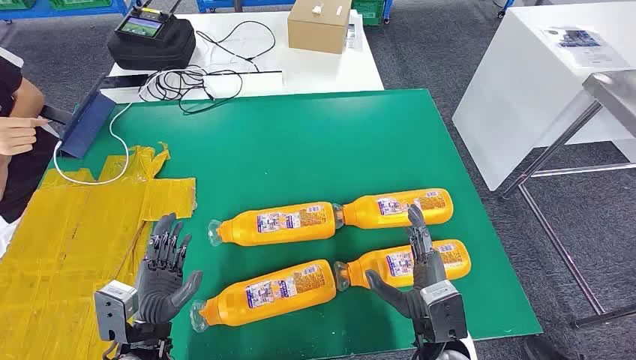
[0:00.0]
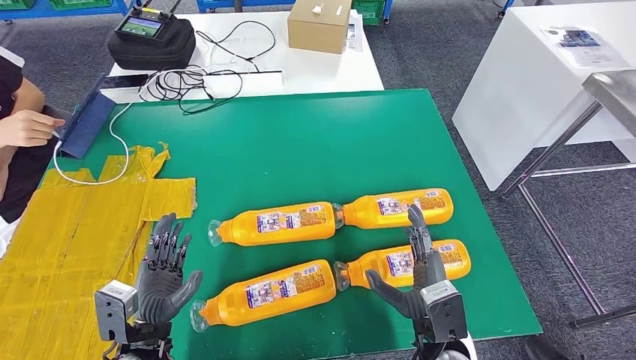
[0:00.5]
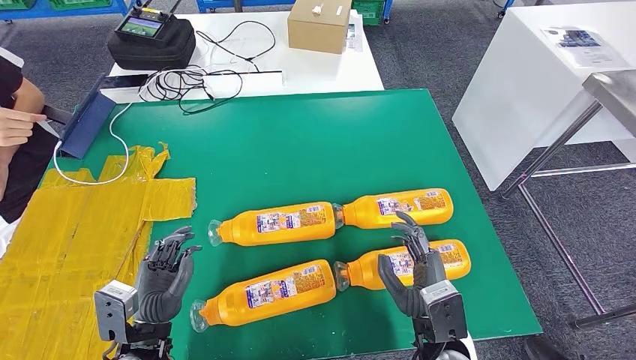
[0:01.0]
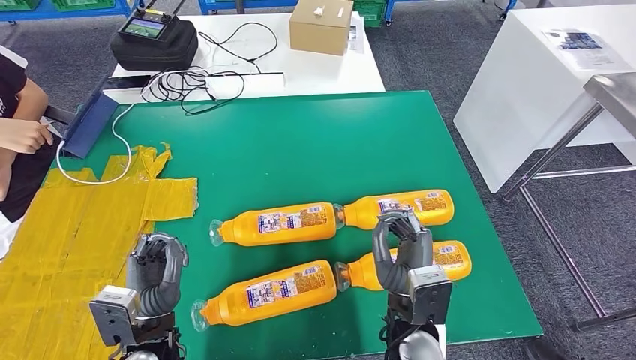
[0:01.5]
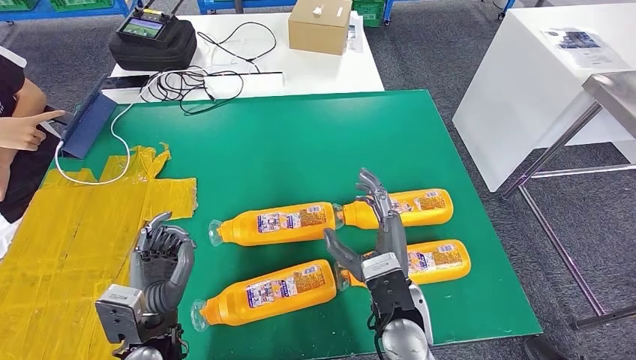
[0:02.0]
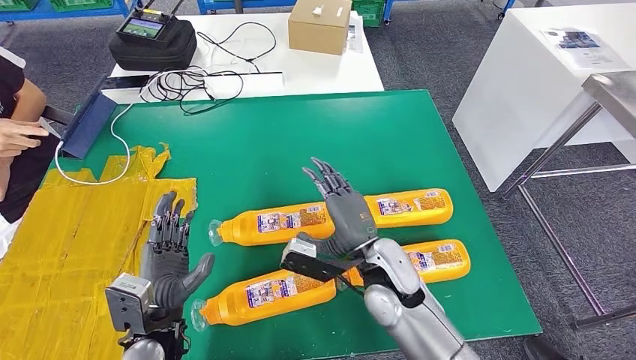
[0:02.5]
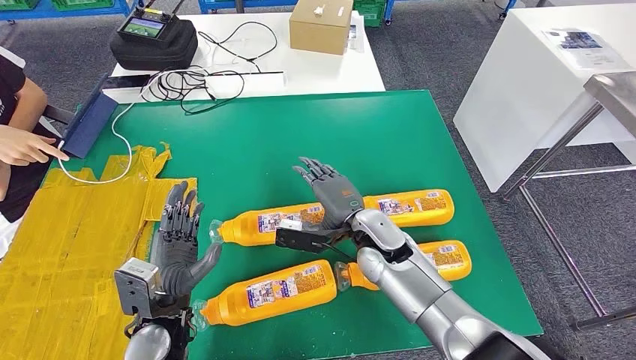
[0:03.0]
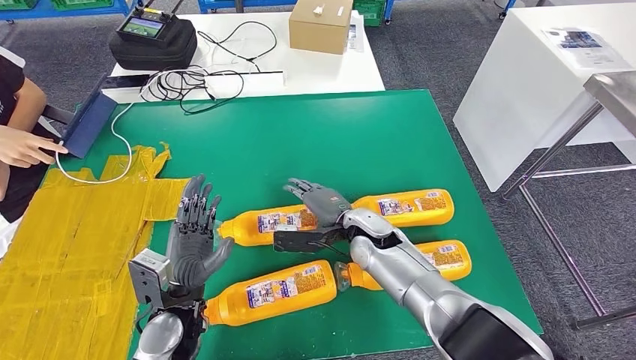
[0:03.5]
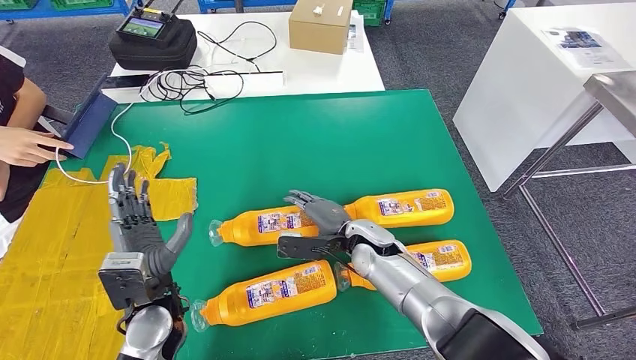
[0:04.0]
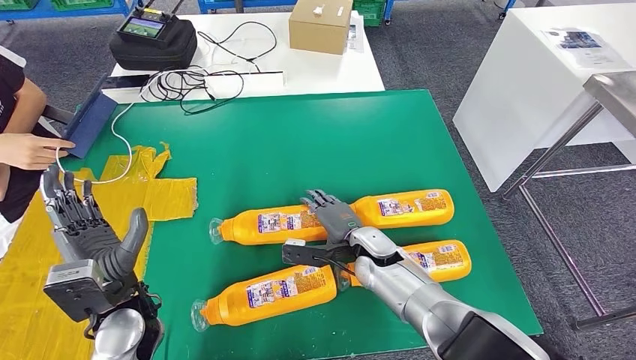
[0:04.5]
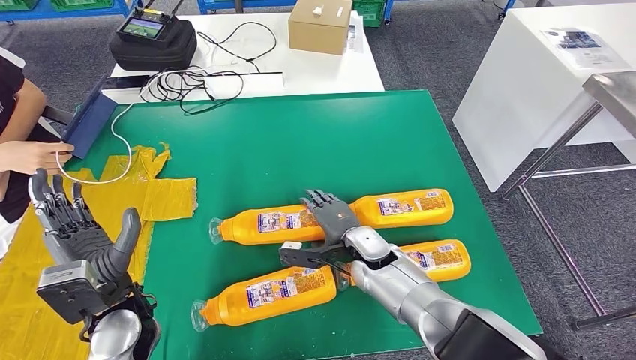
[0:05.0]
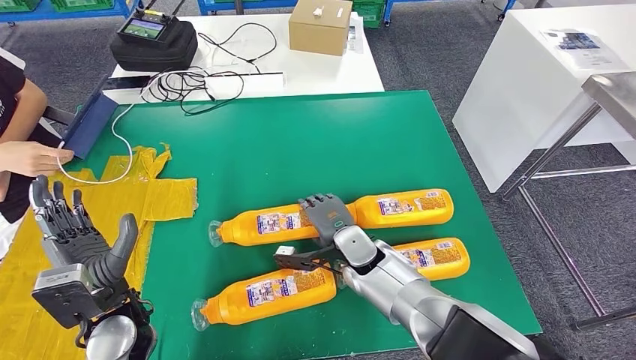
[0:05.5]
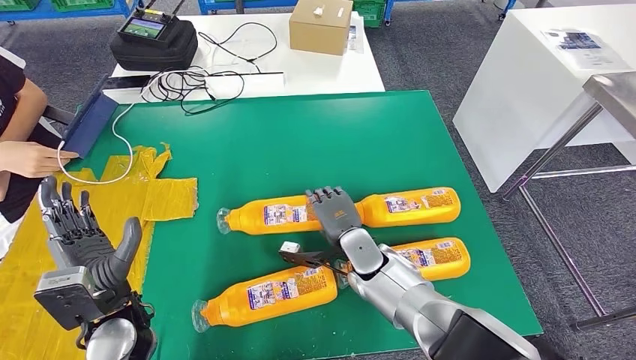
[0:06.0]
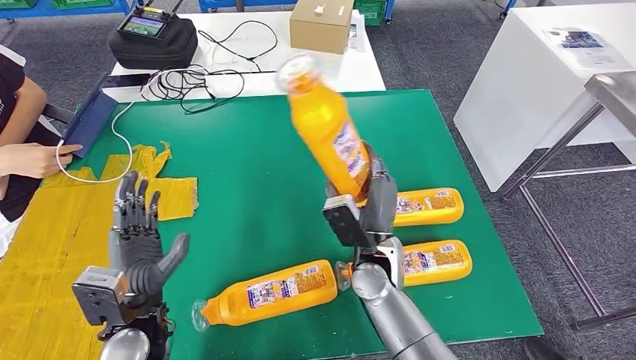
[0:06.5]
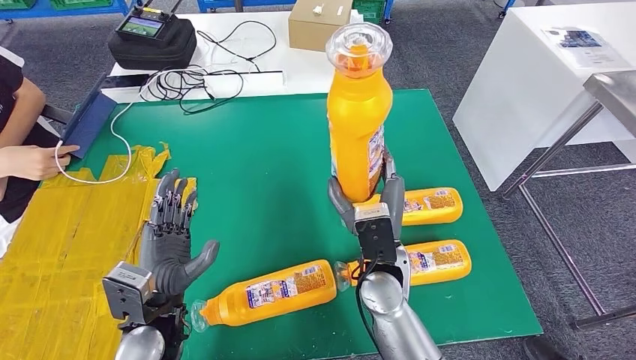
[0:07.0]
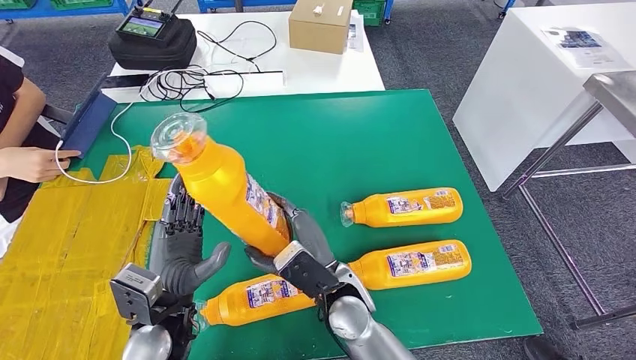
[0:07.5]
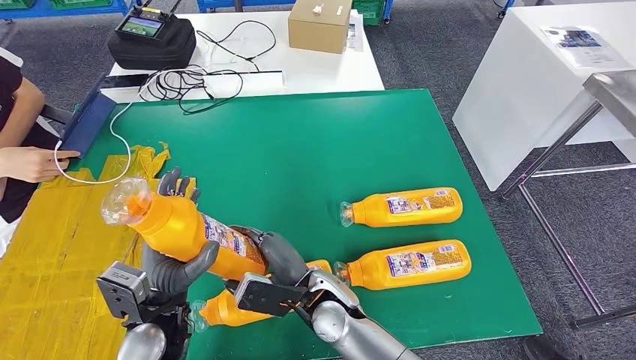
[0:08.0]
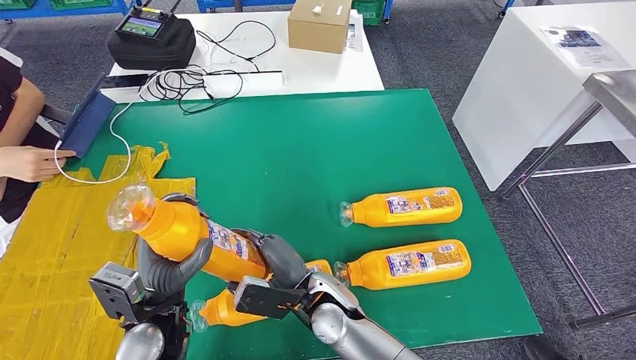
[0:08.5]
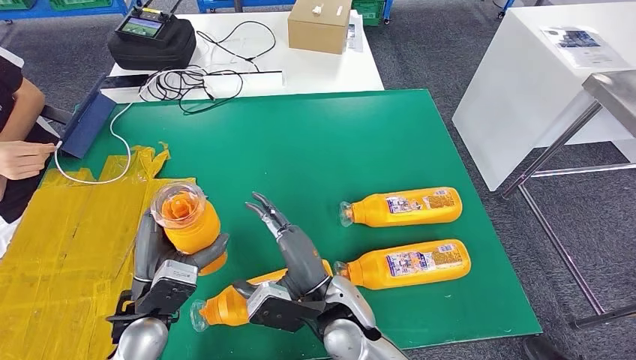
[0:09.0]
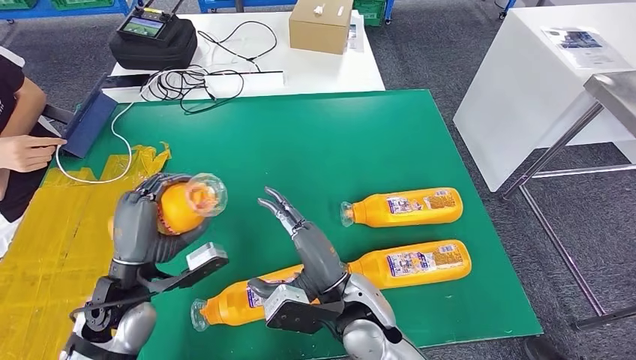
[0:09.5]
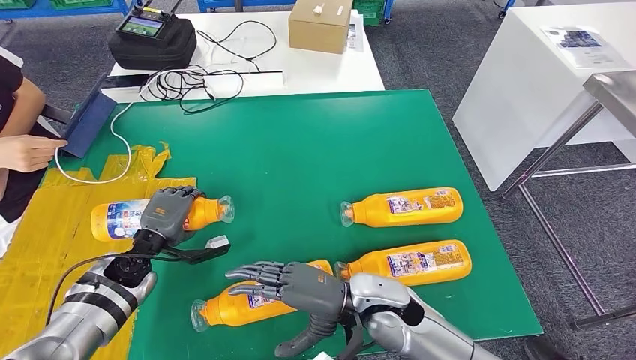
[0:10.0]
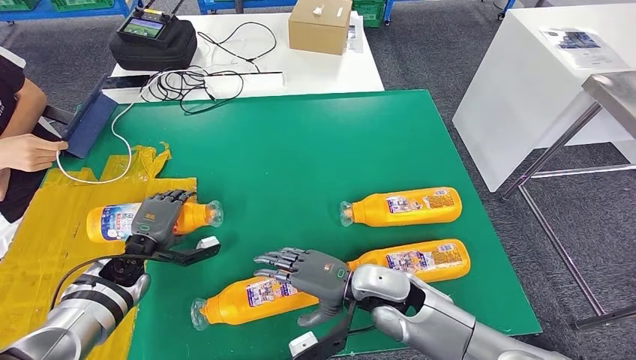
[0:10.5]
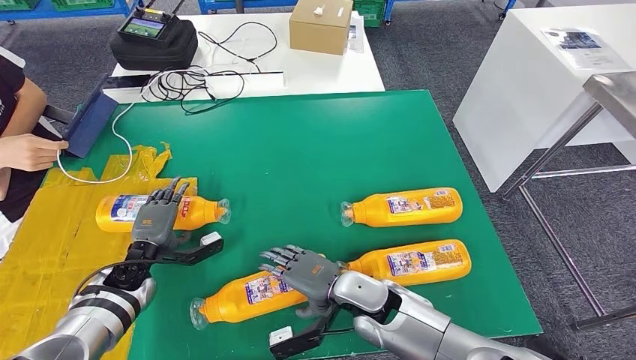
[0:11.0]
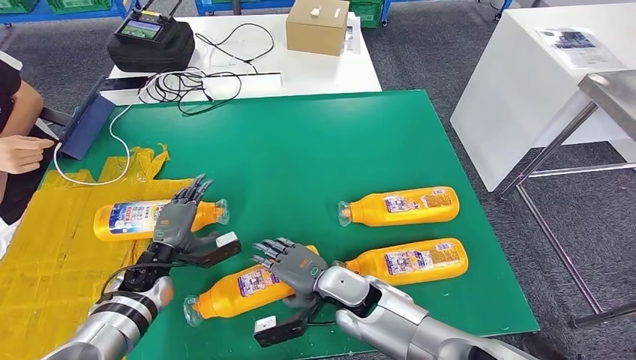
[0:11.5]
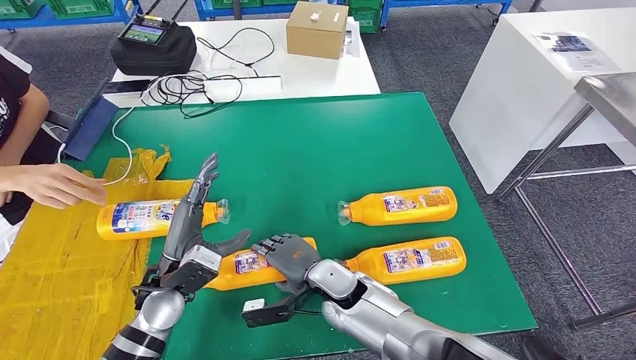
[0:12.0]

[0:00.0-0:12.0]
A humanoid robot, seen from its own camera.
Step, 0:00.0 to 0:07.5: Take the fast-moving consumer goods bottle from the table.
Step, 0:08.0 to 0:11.0: Flip the fast-moving consumer goods bottle to the front side.
0:02.0 to 0:04.0: The right hand travels forward by approximately 15 cm. The left hand moves forward, roughly 5 cm.
0:04.0 to 0:06.0: The left hand moves roughly 5 cm.
0:08.0 to 0:10.0: The right hand travels to the right by about 10 cm, while the left hand is displaced forward and to the left by roughly 15 cm.

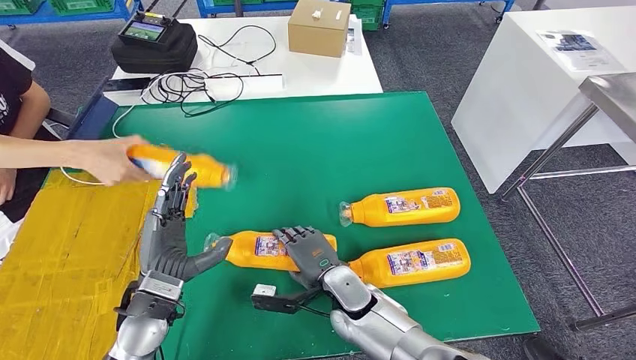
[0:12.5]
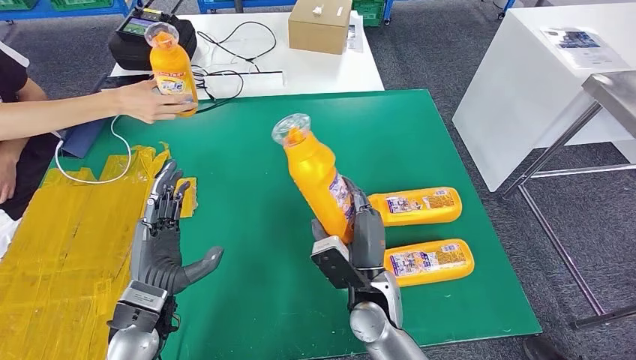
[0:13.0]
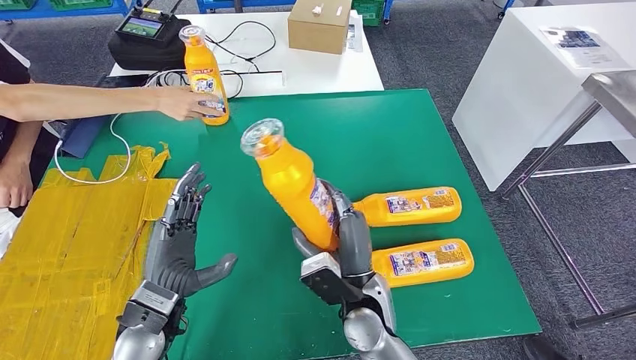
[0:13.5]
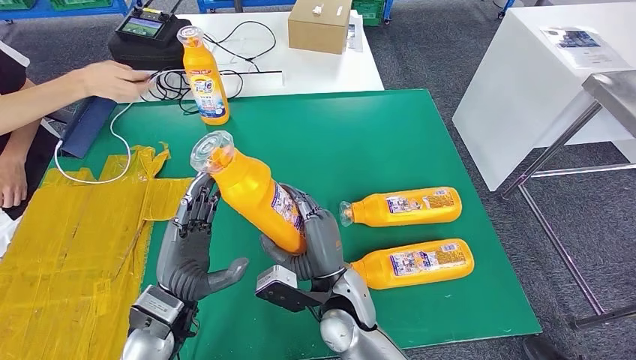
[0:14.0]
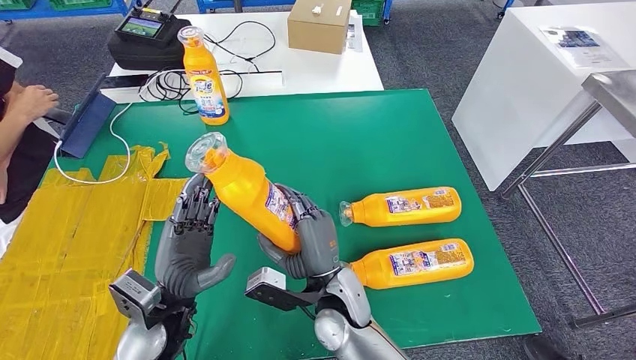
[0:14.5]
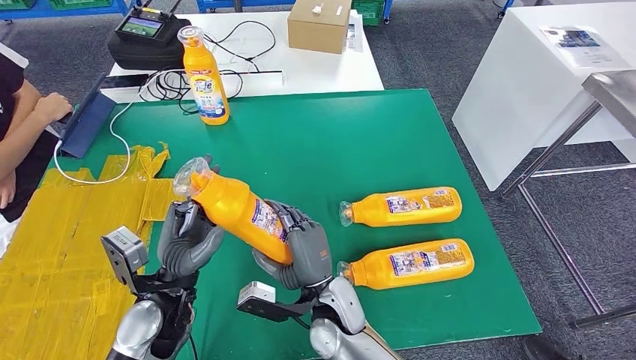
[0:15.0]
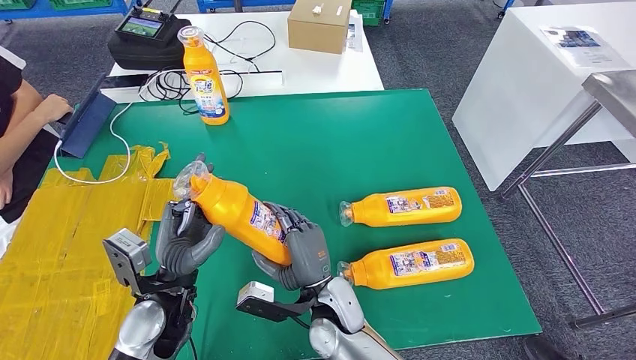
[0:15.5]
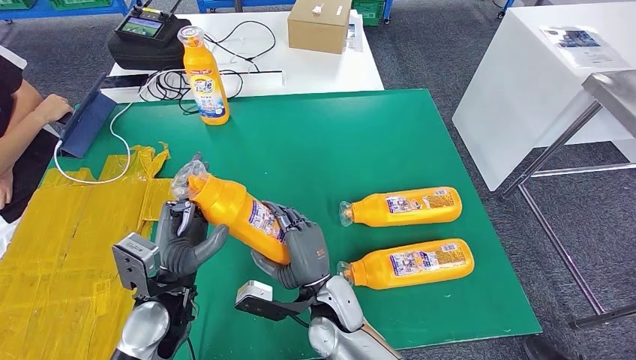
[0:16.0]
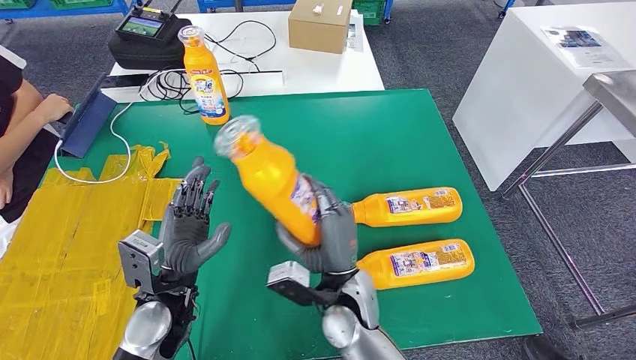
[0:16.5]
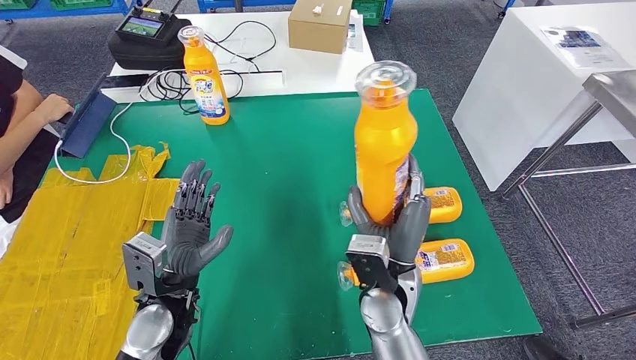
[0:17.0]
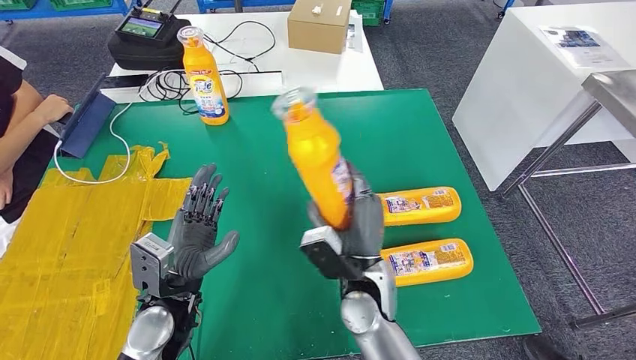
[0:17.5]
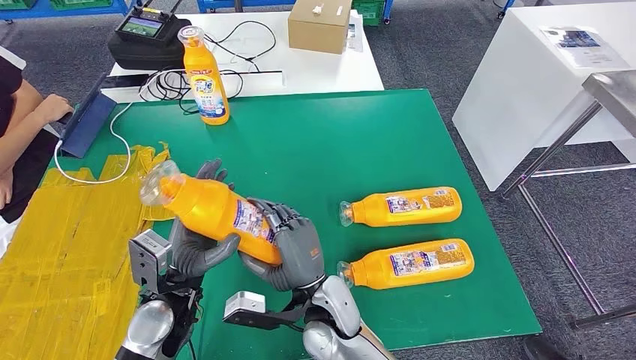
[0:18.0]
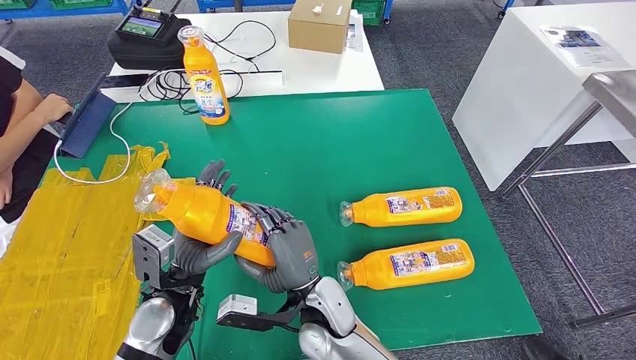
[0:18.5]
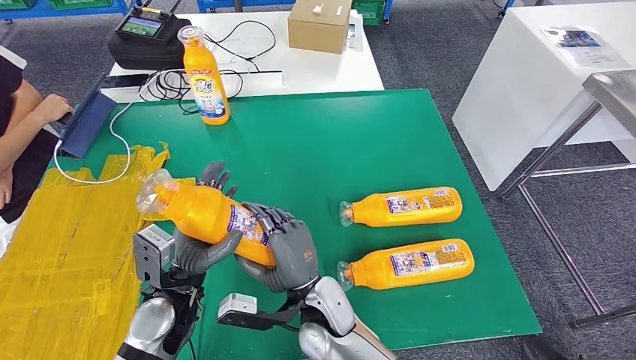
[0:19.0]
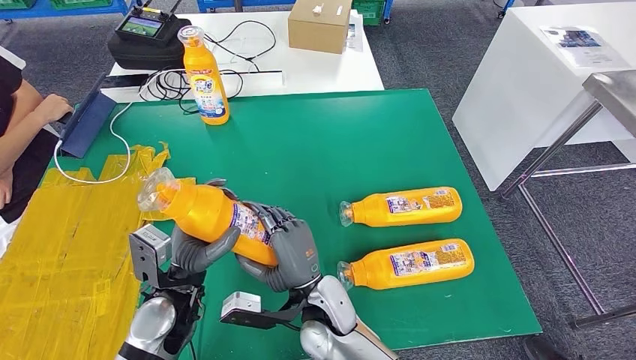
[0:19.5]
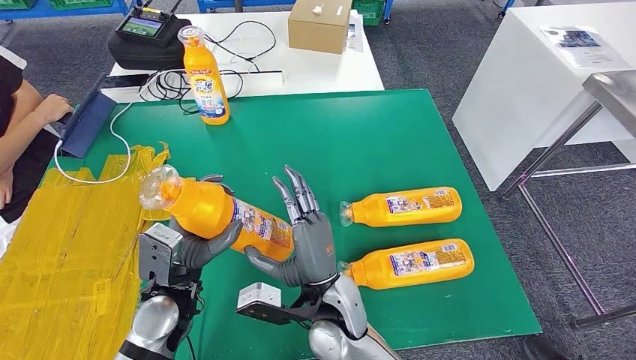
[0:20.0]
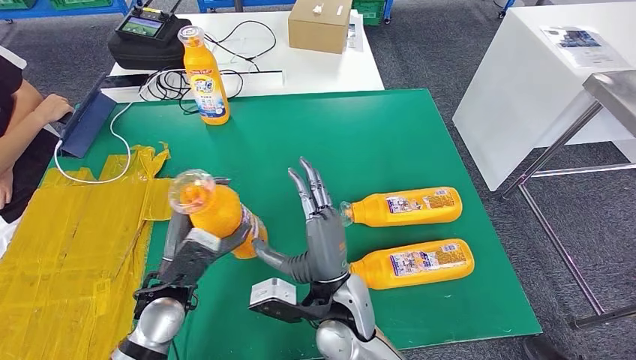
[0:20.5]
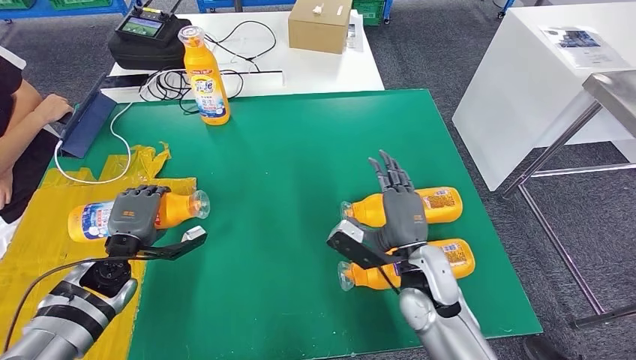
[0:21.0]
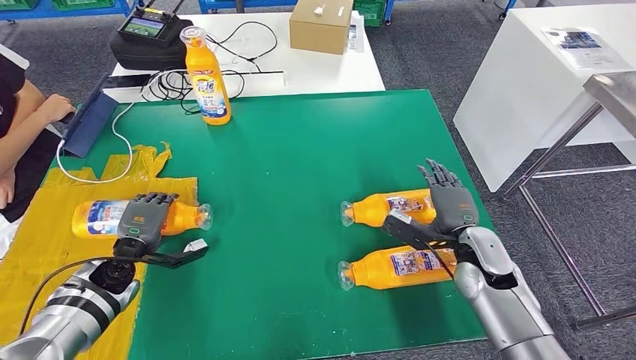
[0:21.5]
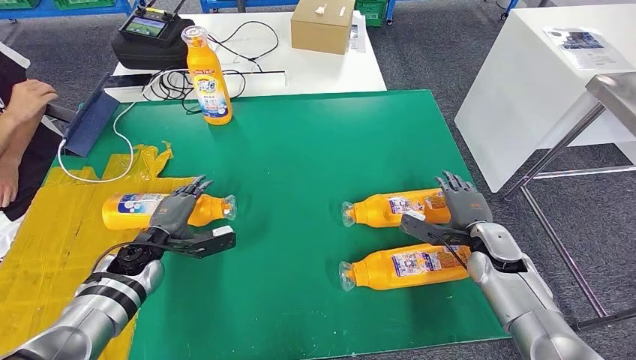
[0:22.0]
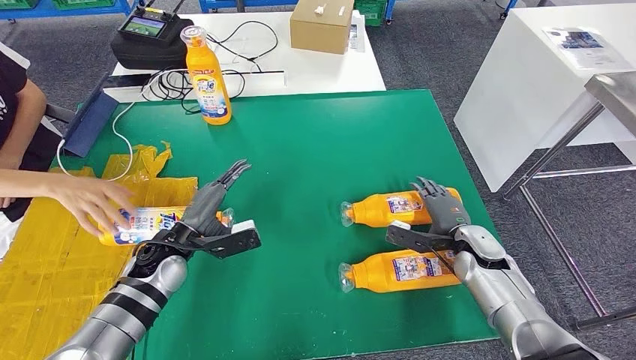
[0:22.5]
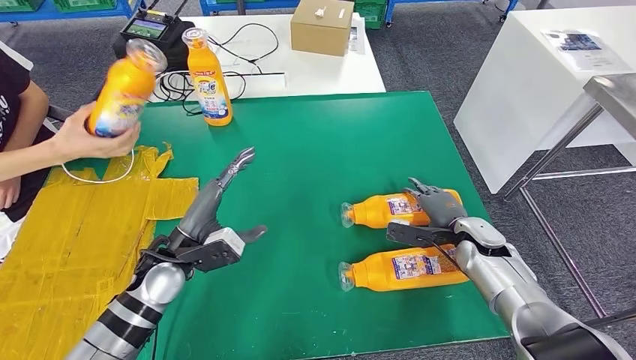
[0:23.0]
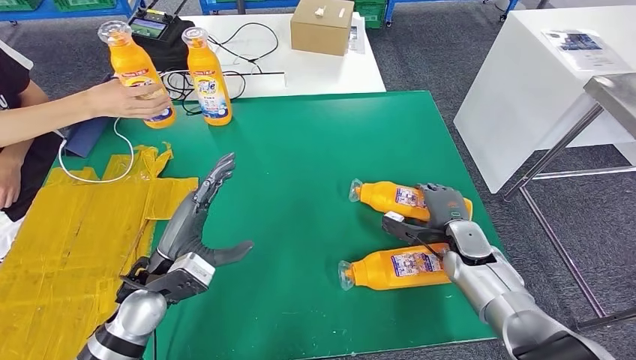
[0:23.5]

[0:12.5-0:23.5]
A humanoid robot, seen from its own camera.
Step, 0:12.5 to 0:15.0: Pick up the fast-moving consumer goods bottle from the table.
Step, 0:15.5 to 0:22.0: Flip the fast-moving consumer goods bottle to the front side.
0:14.5 to 0:16.0: There are only small adjustments of the hands.
0:16.0 to 0:18.0: The right hand reaches some 10 cm to the right, then returns.
0:18.0 to 0:20.0: The hands move only a little.
